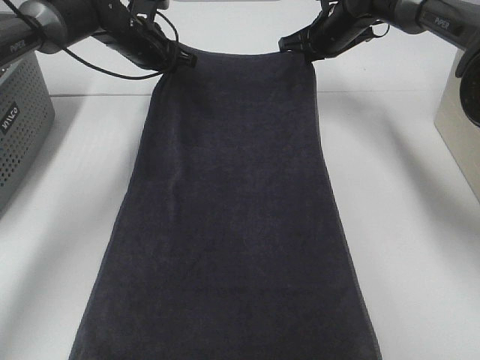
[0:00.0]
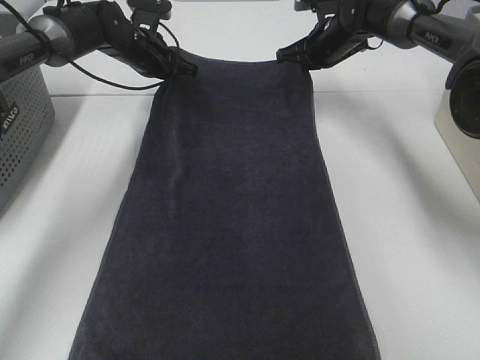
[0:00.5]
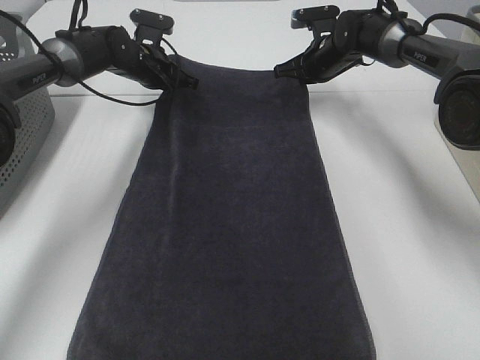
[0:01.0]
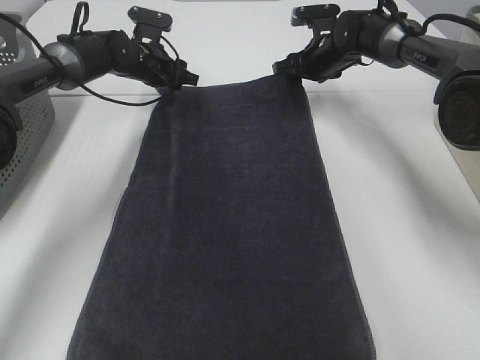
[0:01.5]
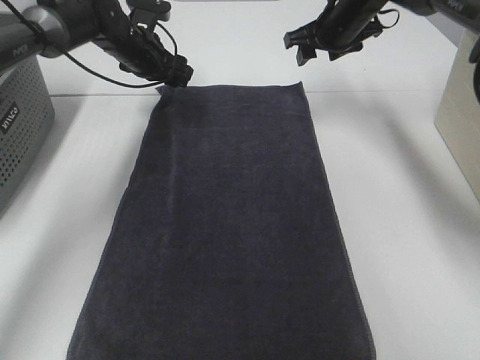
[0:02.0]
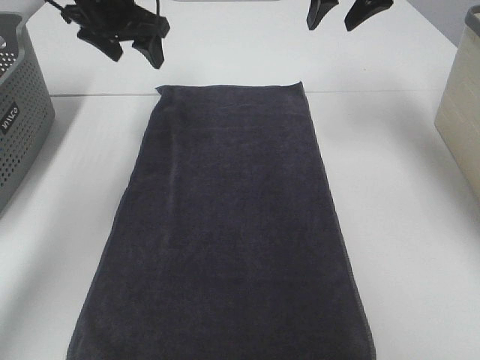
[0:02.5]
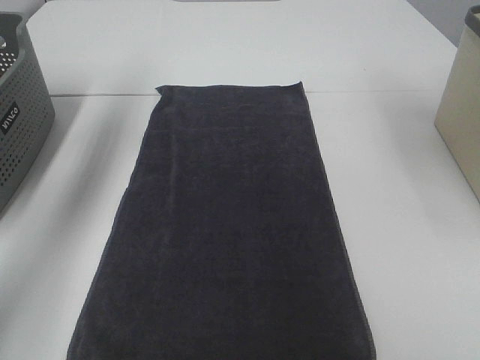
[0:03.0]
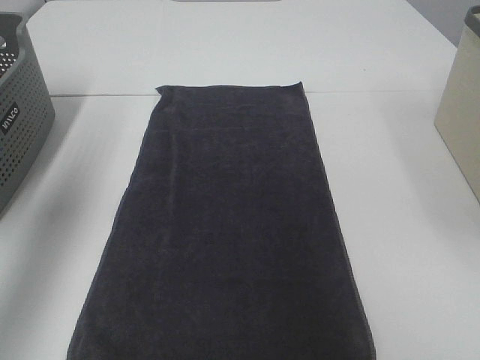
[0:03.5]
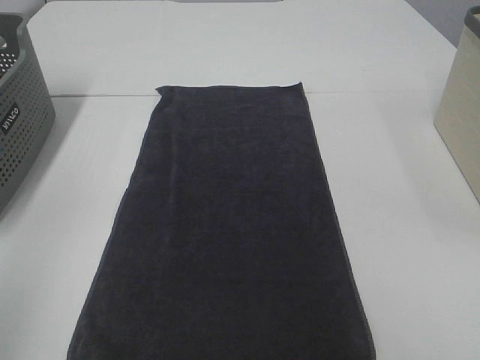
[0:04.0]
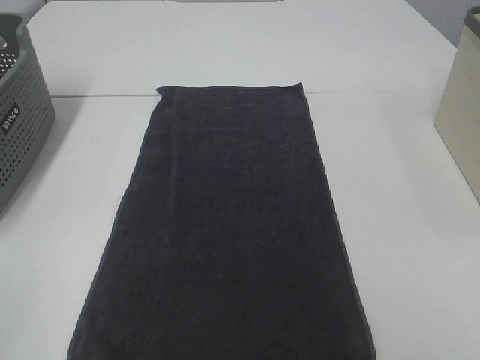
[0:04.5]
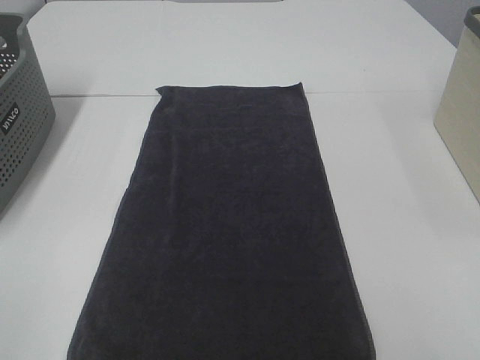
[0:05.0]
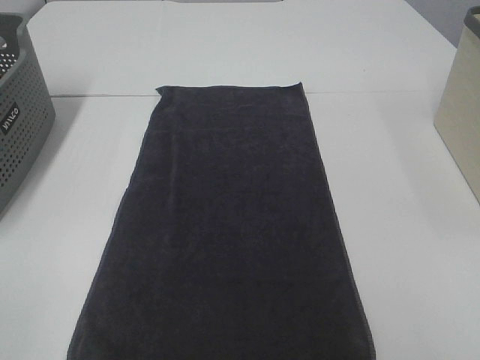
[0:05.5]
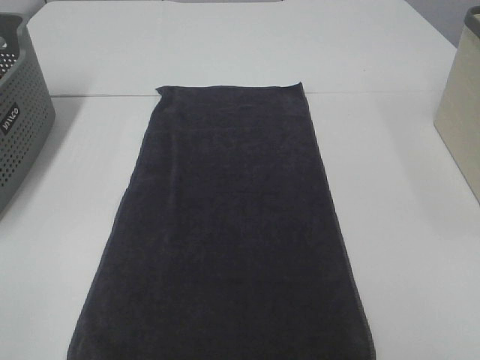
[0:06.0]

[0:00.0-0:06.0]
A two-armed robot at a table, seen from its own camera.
Task of the whole recording: Remove the towel and place it.
0:00.0 to 0:02.0: The left gripper opens, while the right gripper opens its fingers.
0:02.0 to 0:04.0: The right gripper travels backward by about 50 cm. Meanwhile the left gripper goes approximately 50 cm backward and upward.

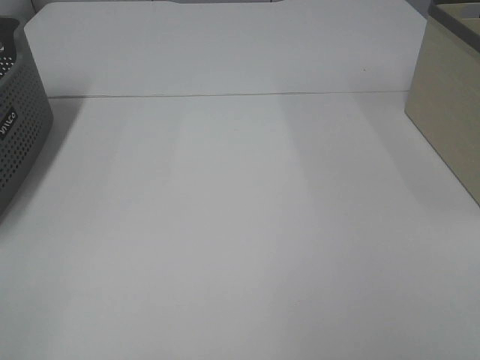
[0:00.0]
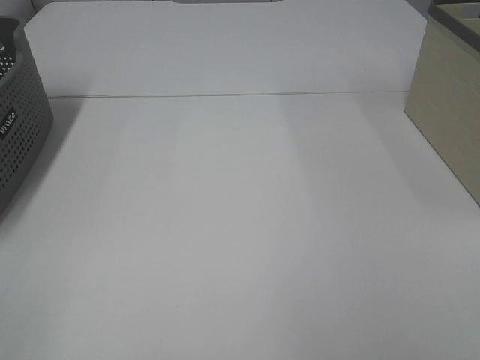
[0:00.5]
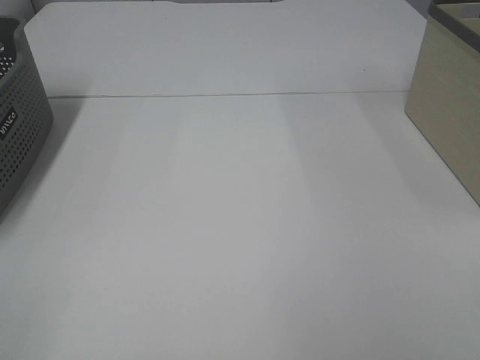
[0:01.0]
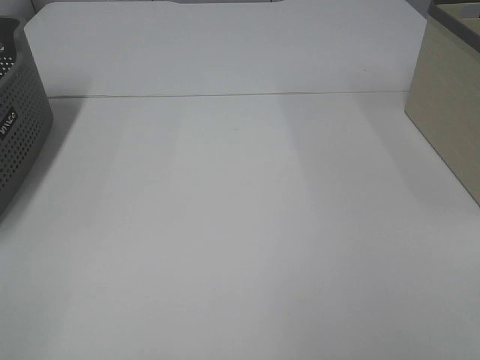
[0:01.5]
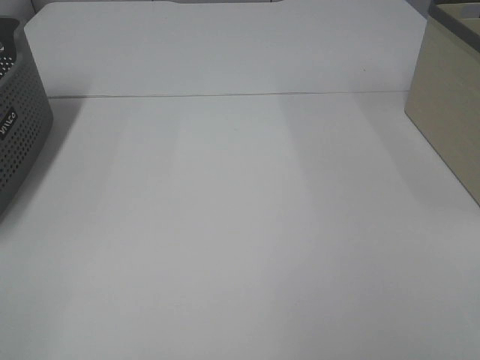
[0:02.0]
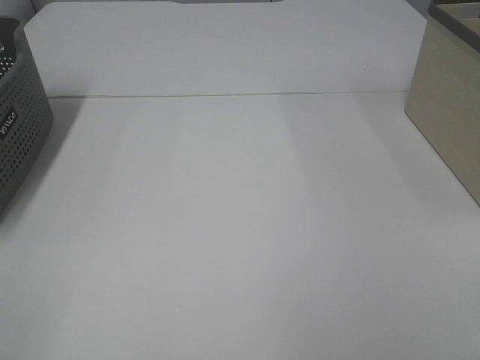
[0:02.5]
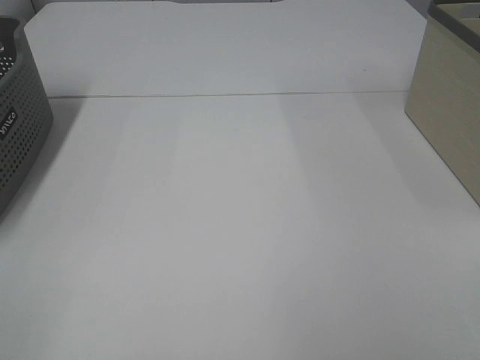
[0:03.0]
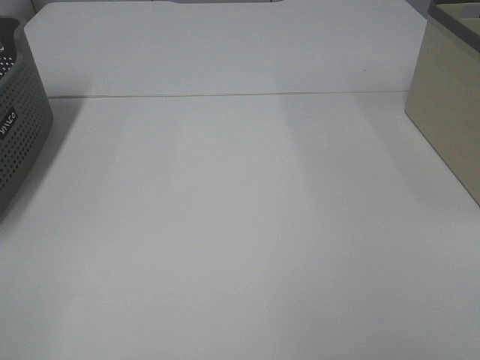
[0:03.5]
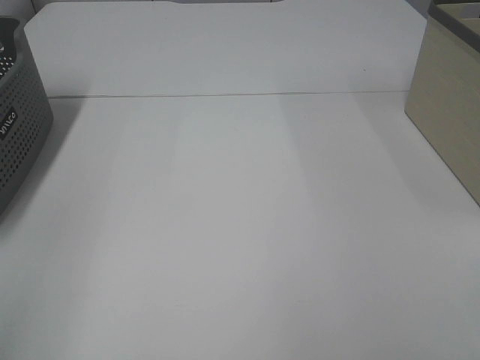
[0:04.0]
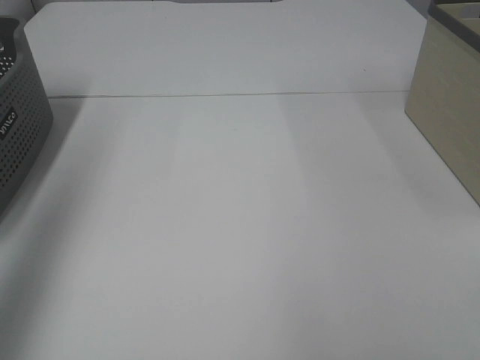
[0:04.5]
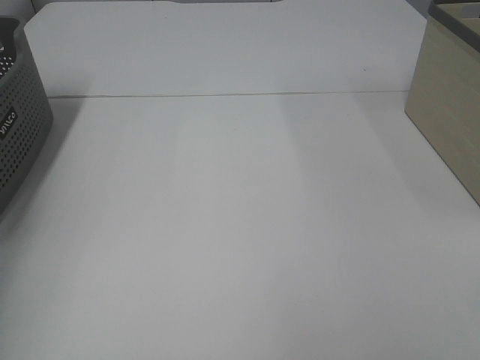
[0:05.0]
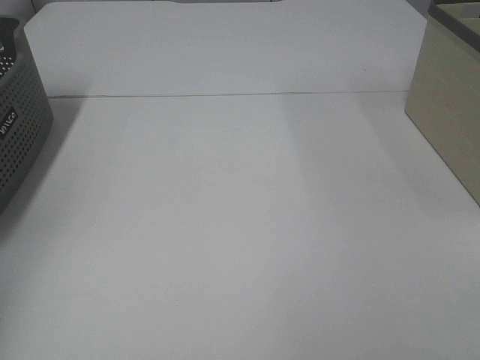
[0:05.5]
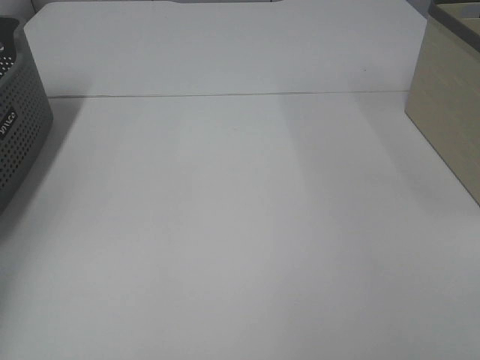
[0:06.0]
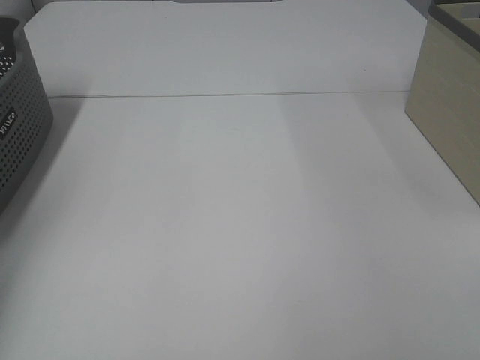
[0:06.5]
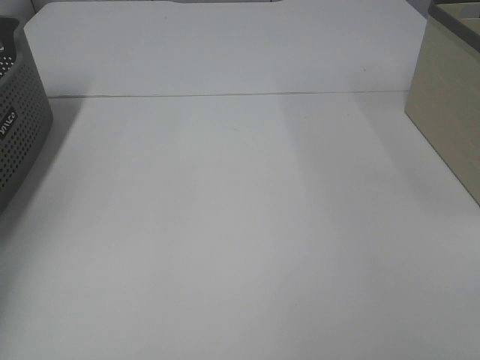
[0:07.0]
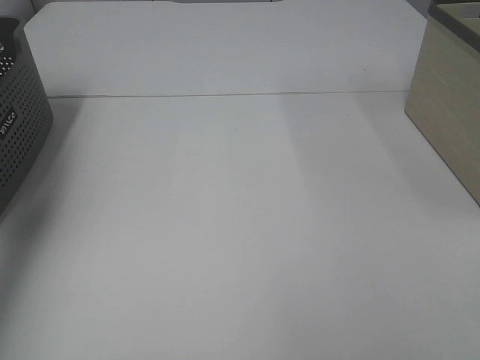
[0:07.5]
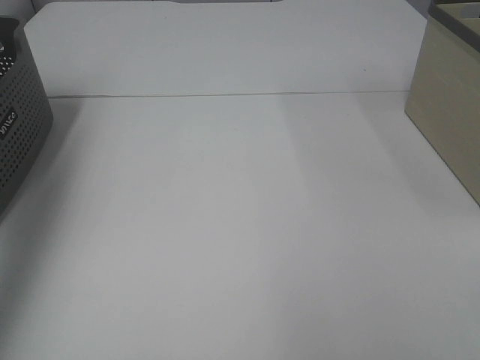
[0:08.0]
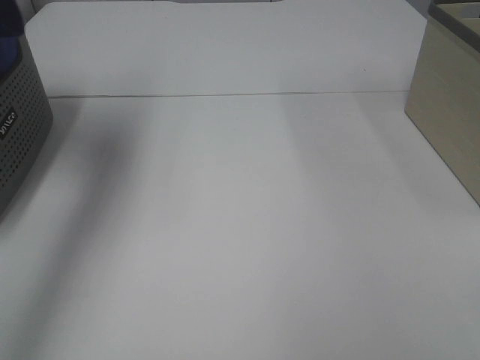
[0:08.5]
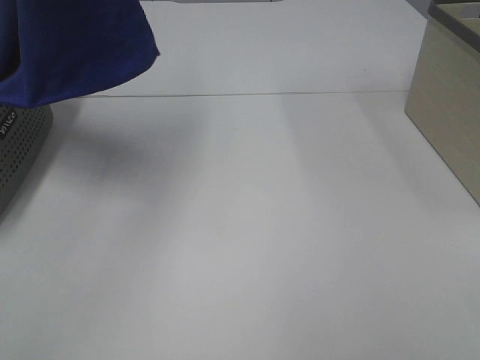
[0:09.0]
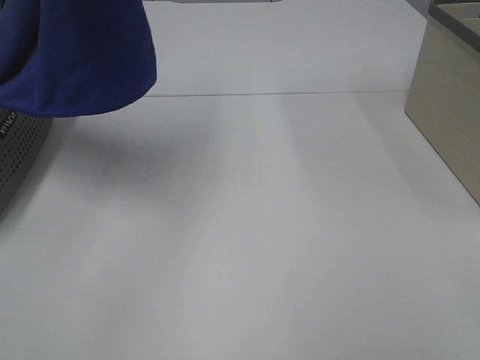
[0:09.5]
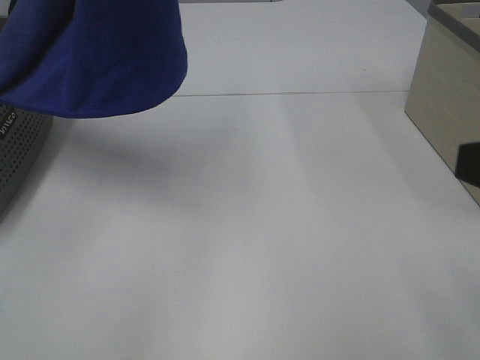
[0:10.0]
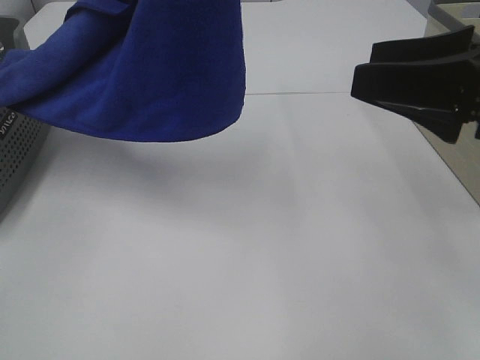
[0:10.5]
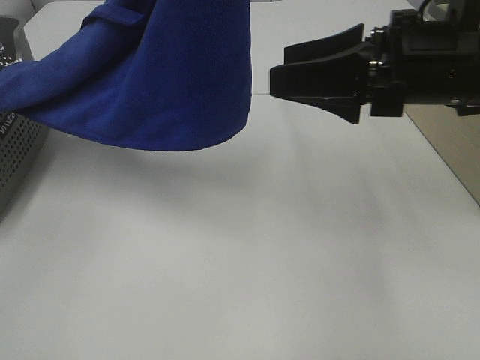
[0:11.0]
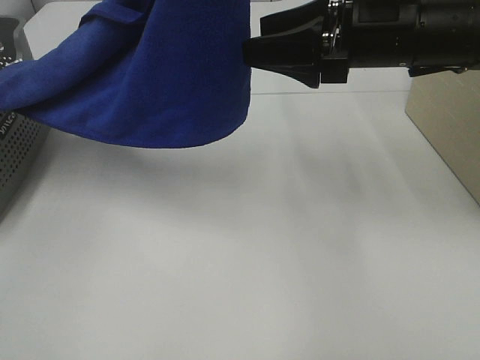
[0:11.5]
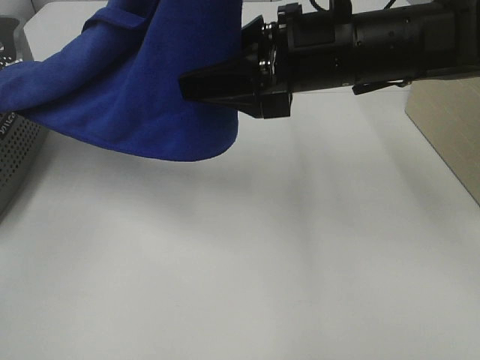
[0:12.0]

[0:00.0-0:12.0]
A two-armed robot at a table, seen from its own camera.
Task of the whole recording: Remove the towel and place it.
0:00.0 to 0:02.0: Both grippers stay about where they are.
0:04.0 to 0:06.0: The left gripper moves forward, downward and to the left, about 40 cm.
0:06.0 to 0:08.0: The left gripper shifts some 25 cm upward, and closes up.
0:08.0 to 0:10.0: The right gripper heads forward, covering approximately 10 cm, while the left gripper is displaced to the right by roughly 25 cm.
0:10.0 to 0:12.0: The right gripper goes some 25 cm forward and to the left. Meanwhile the left gripper goes approximately 5 cm to the right.

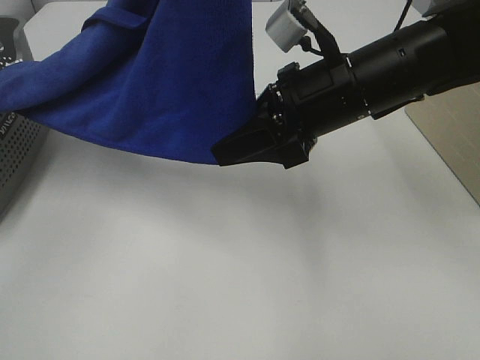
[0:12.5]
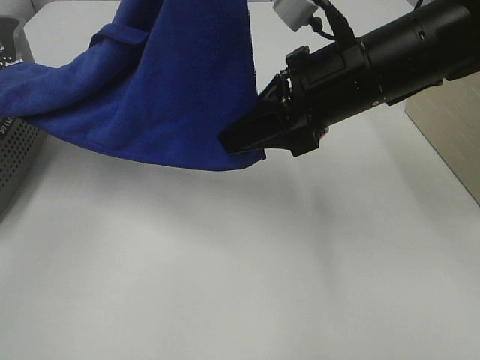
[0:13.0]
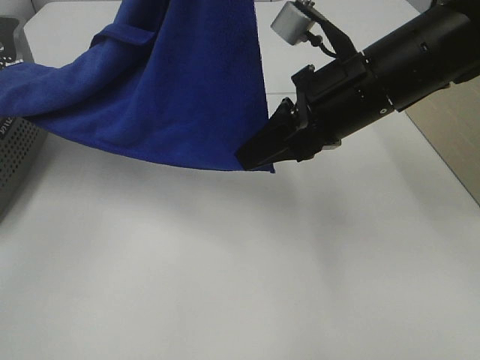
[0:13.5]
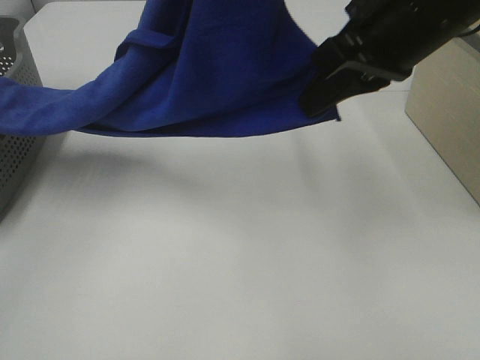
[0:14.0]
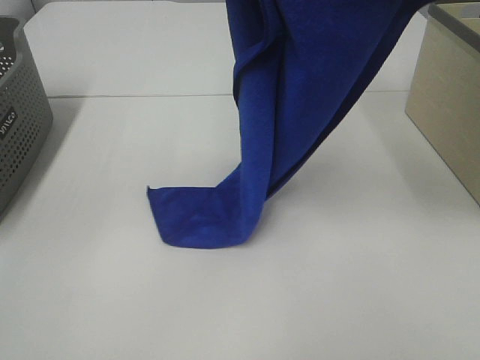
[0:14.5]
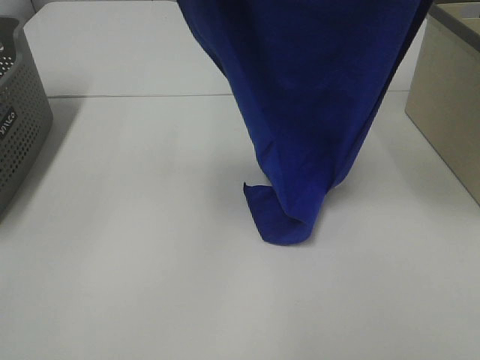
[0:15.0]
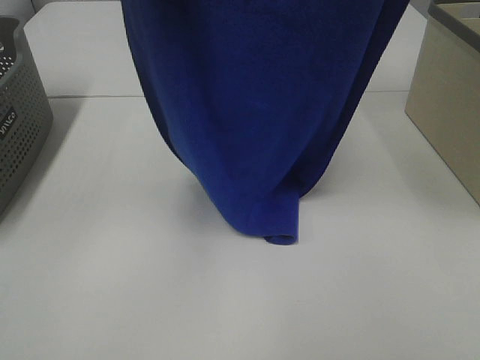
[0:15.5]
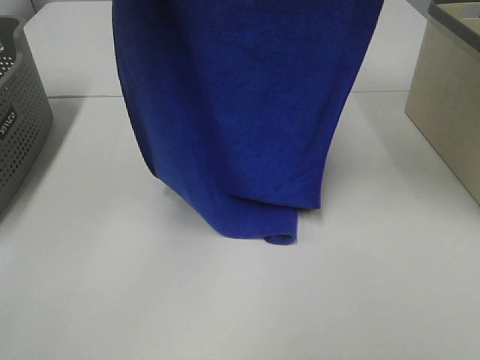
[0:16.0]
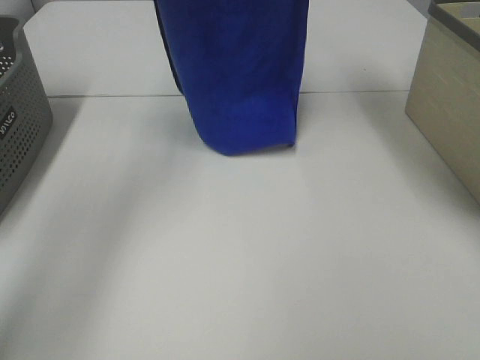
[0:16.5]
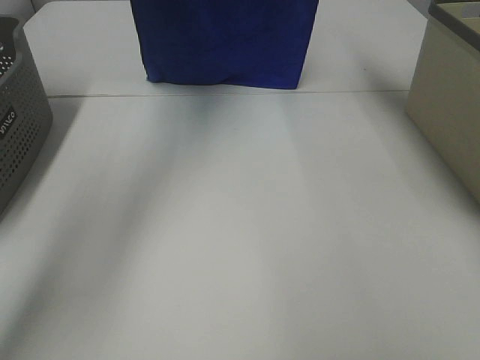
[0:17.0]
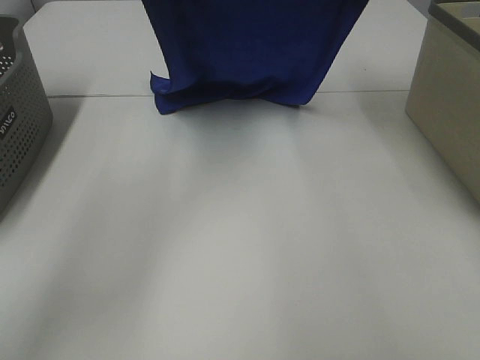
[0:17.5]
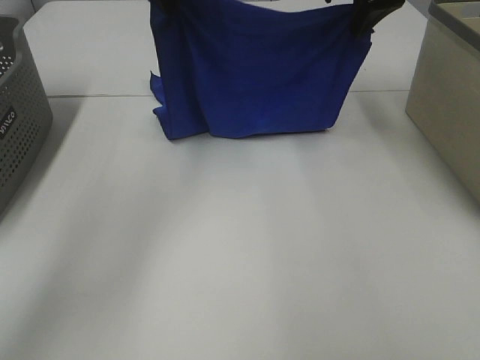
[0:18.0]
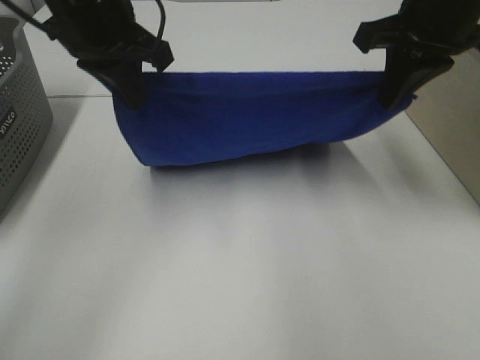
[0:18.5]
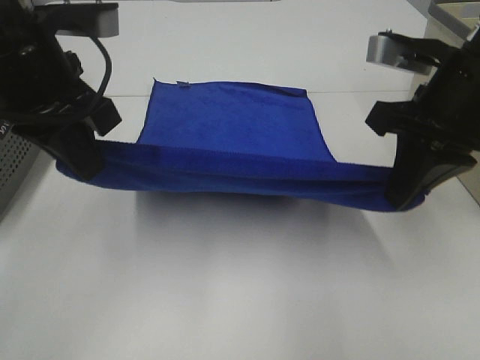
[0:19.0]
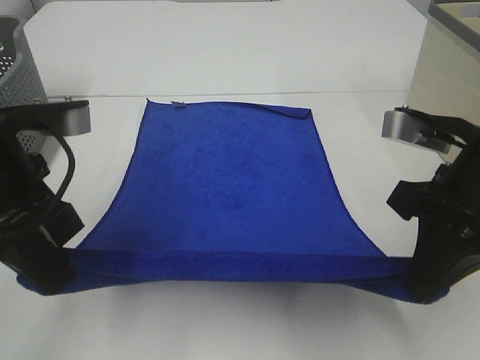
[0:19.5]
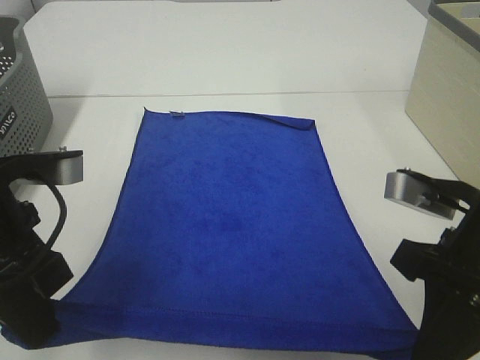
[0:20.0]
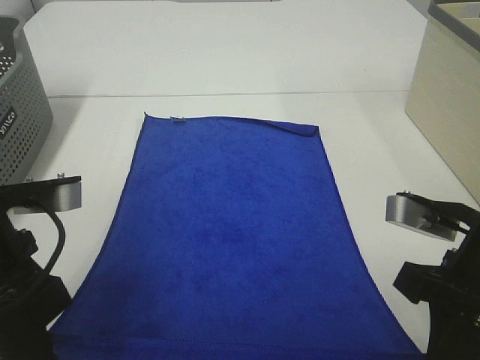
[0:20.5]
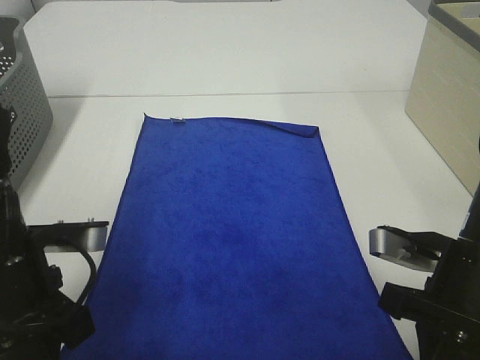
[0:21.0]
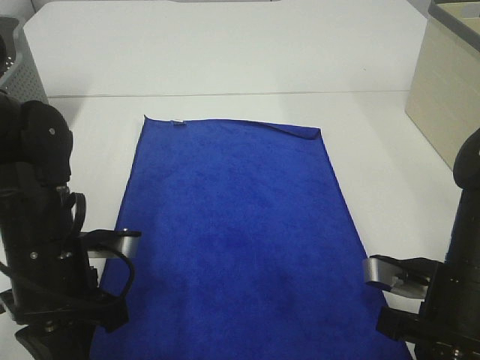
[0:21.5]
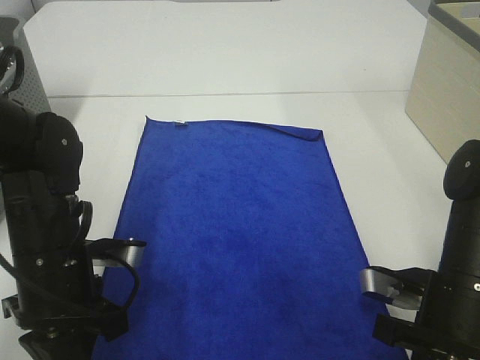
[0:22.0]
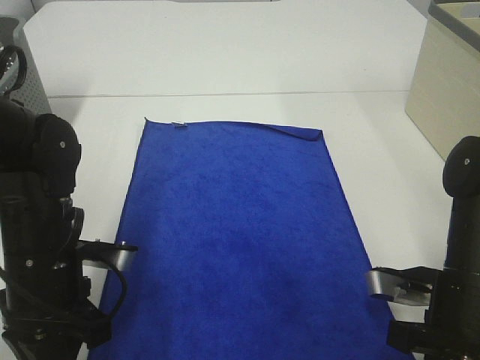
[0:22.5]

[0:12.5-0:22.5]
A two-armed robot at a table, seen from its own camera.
Task of the whole recording: Remove the towel and place it.
Step, 0:13.5 to 0:18.5: Left hand: spread the blue towel flat on the table.
Step, 0:13.5 to 0:18.5: Right hand: spread the blue towel flat on the table.
0:12.5 to 0:14.5: The right gripper is displaced upward by about 20 cm, and closes.
0:14.5 to 0:16.5: The right gripper is displaced forward by about 15 cm, while the left gripper heads forward and to the left, covering roughly 20 cm.
0:16.5 to 0:18.5: The right gripper heads downward, backward and to the right, covering roughly 20 cm; the left gripper is displaced downward and backward by some 20 cm.
0:18.5 to 0:20.5: The two grippers go approximately 20 cm backward and downward.
0:20.5 to 0:22.5: Both grippers travel together downward, roughly 10 cm.
